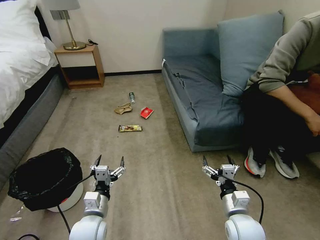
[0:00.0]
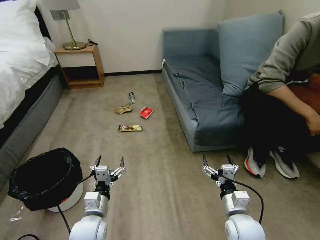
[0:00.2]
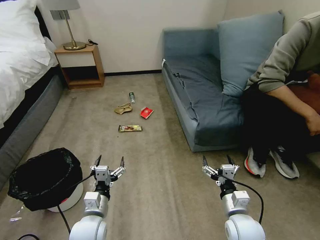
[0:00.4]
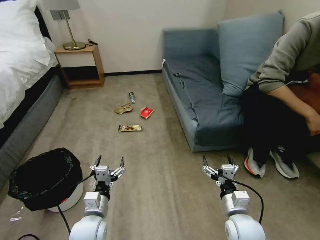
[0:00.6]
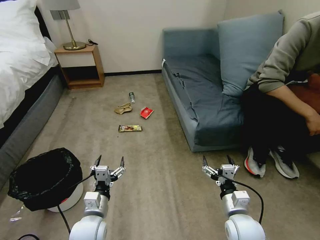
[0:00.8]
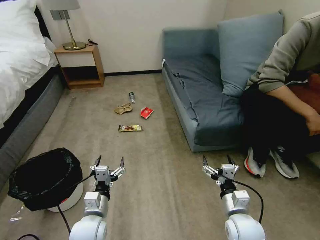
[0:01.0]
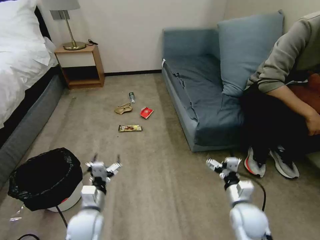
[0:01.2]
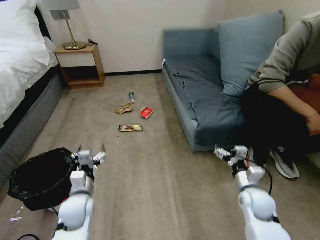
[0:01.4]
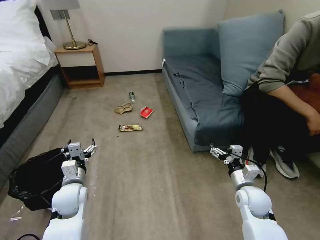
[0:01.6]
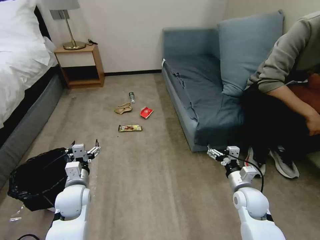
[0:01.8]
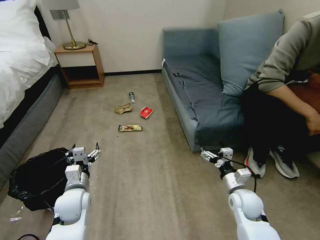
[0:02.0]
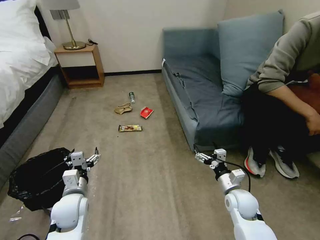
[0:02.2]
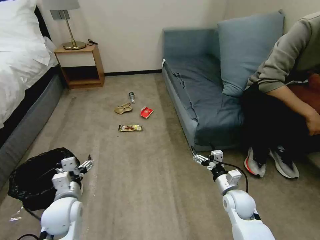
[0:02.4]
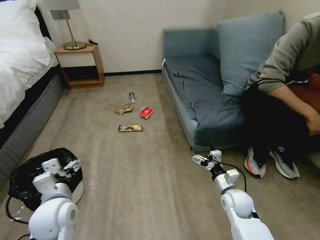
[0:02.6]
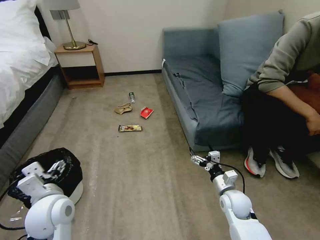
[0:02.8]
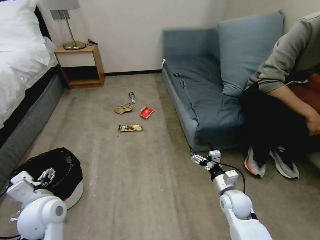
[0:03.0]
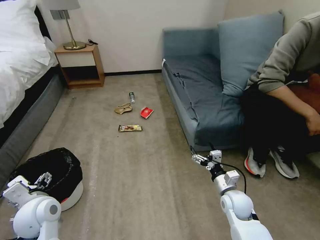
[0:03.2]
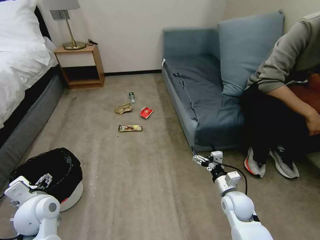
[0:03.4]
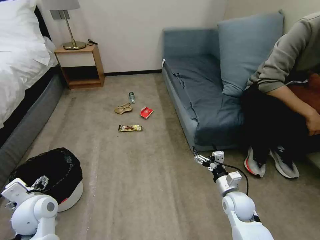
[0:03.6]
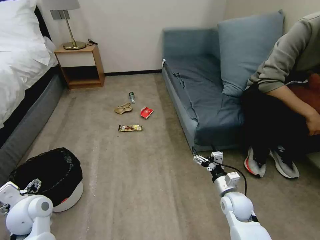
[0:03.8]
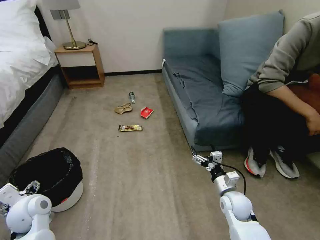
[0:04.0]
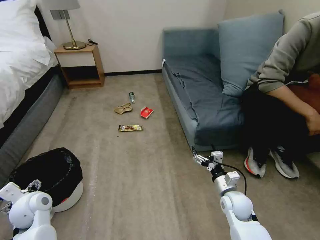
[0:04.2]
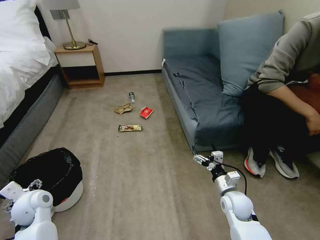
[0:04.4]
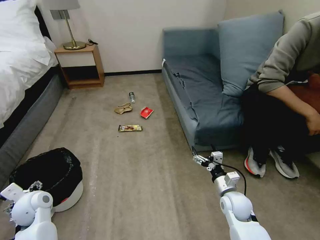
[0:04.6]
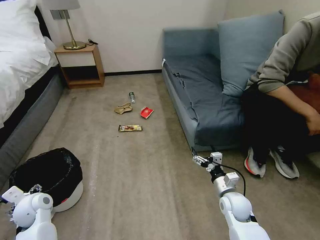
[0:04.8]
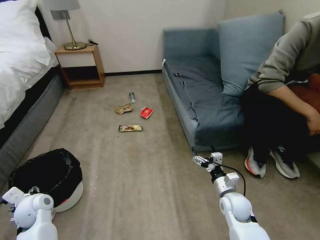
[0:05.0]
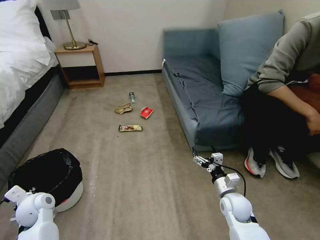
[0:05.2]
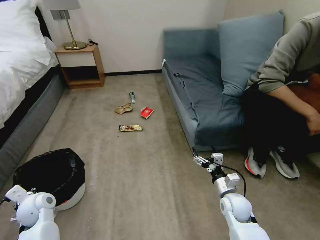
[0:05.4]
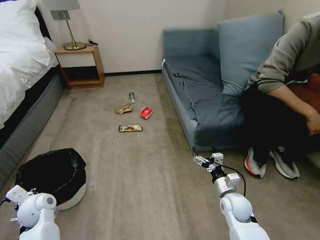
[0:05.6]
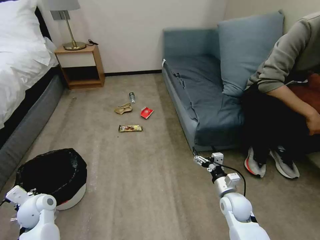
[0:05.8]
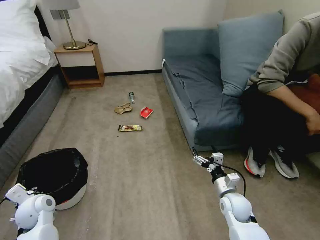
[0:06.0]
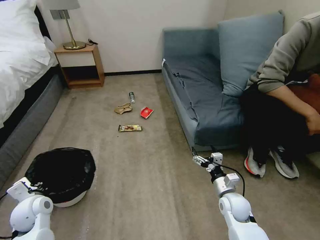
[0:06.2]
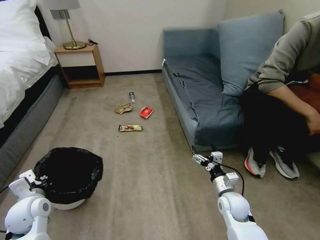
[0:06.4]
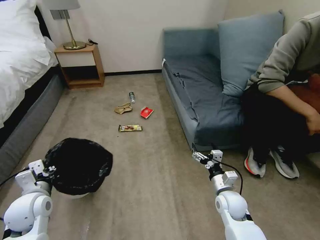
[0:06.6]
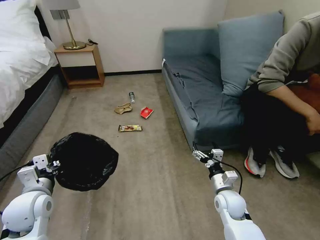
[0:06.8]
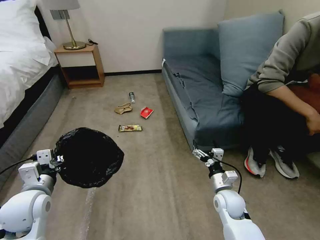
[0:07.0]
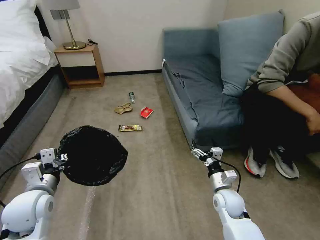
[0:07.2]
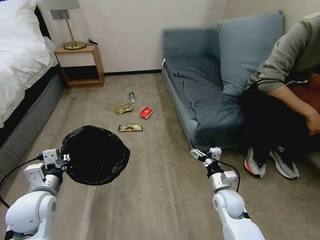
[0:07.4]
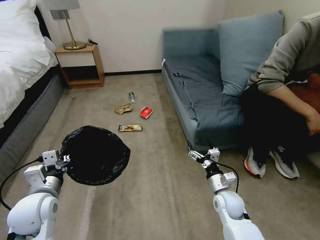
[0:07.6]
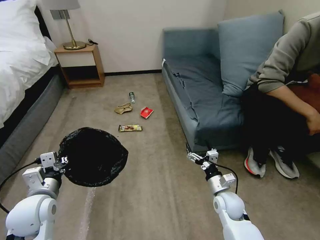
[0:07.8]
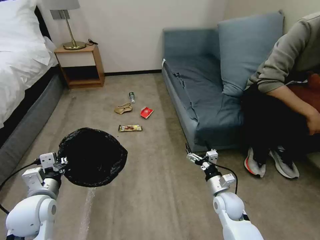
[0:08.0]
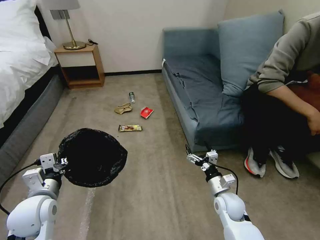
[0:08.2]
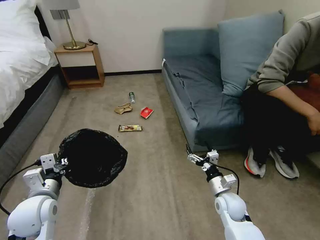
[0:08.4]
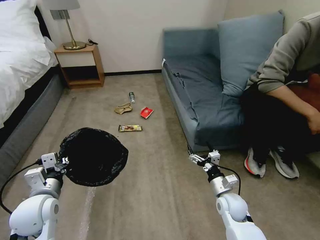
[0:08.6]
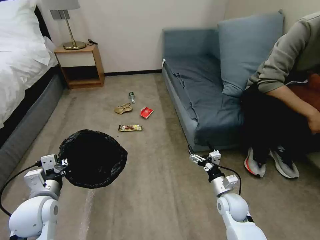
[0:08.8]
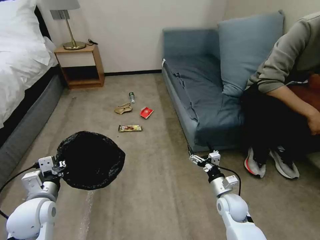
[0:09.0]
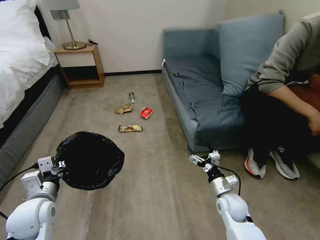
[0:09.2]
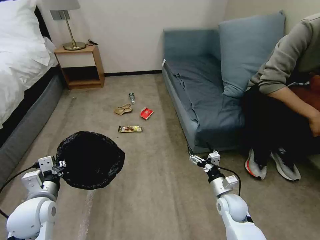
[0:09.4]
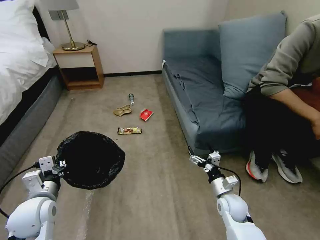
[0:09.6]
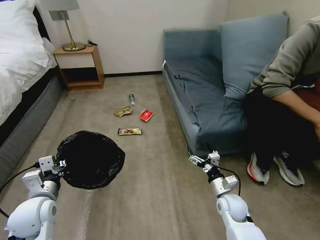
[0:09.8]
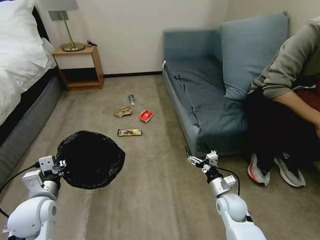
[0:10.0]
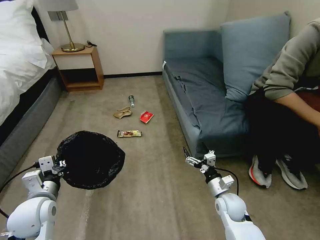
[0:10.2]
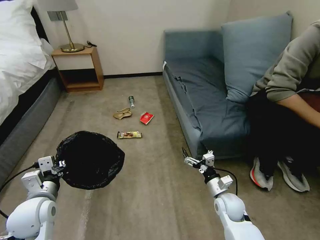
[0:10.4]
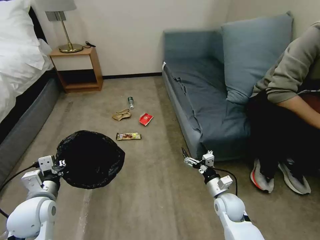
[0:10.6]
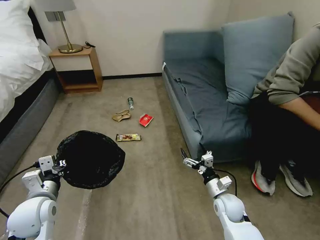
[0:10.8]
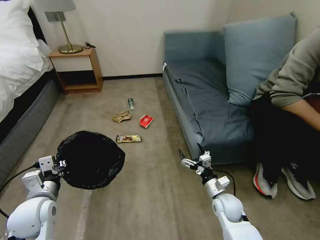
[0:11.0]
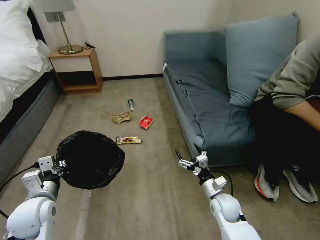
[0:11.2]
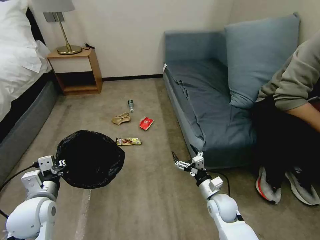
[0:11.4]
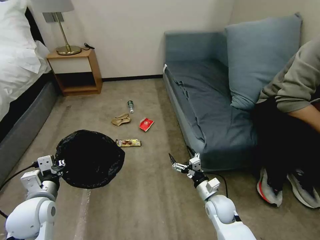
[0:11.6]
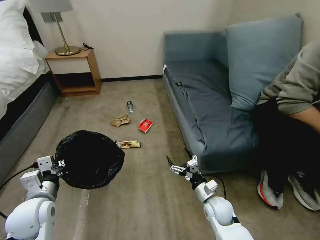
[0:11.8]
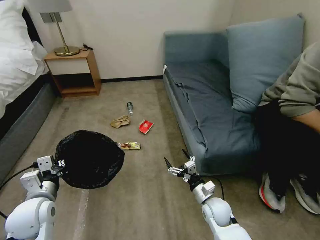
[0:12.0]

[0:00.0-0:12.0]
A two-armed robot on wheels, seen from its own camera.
Task of the whole recording: Pick up the trash bin, then pick up the garbage on the floor and place it into the trash bin.
0:01.6 to 0:03.0: The right gripper changes place by about 5 cm. Meanwhile the left gripper shifts approximately 10 cm backward and upward.
0:03.0 to 0:04.4: The left gripper moves to the left and downward, about 10 cm.
0:04.4 to 0:06.0: The left gripper closes.
0:06.0 to 0:07.6: The left gripper goes approximately 10 cm upward and to the right.
0:07.6 to 0:10.4: The grippers move only a little.
0:10.4 to 0:12.0: The right gripper shifts by approximately 5 cm.

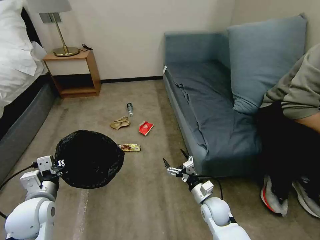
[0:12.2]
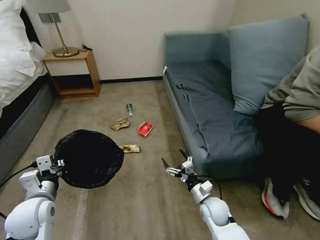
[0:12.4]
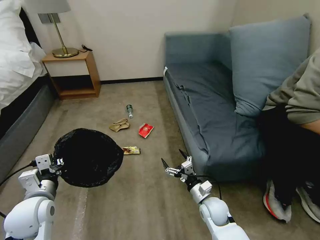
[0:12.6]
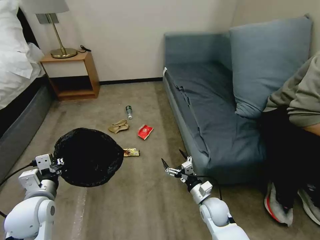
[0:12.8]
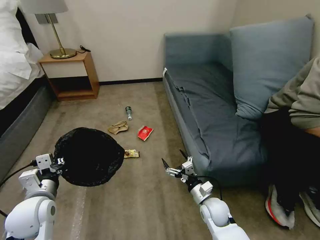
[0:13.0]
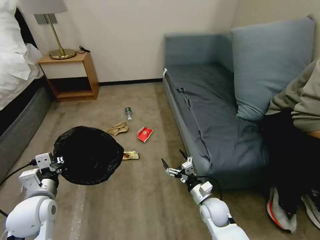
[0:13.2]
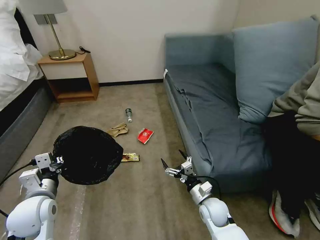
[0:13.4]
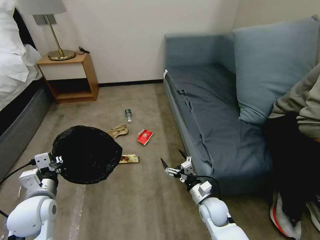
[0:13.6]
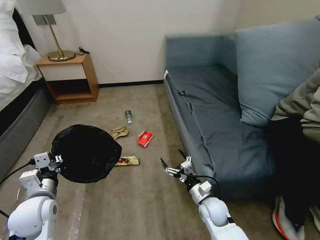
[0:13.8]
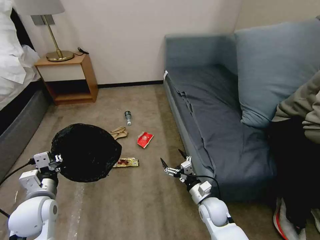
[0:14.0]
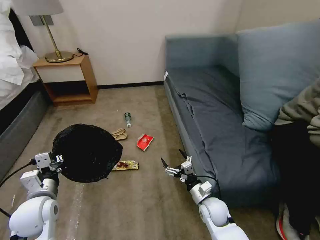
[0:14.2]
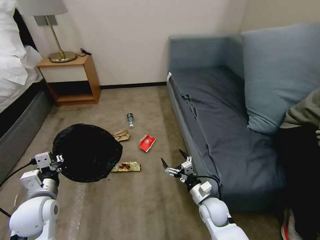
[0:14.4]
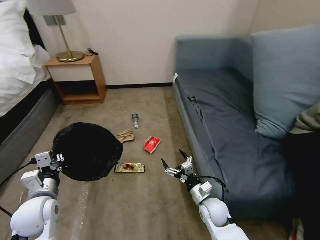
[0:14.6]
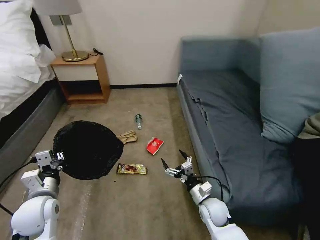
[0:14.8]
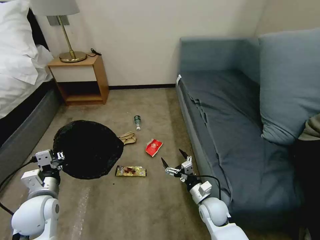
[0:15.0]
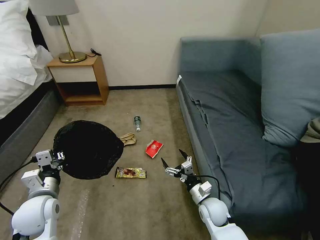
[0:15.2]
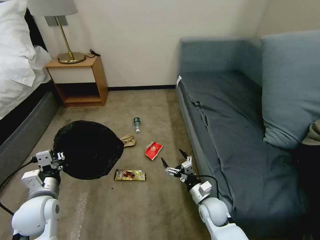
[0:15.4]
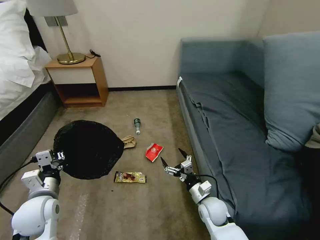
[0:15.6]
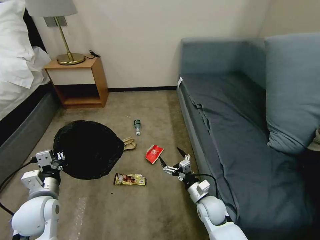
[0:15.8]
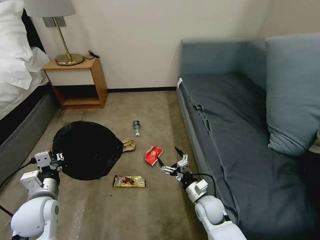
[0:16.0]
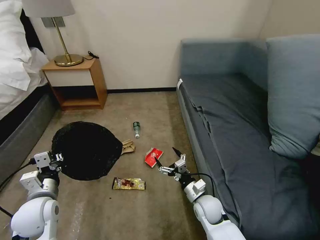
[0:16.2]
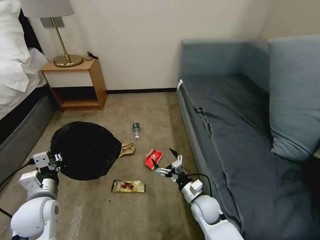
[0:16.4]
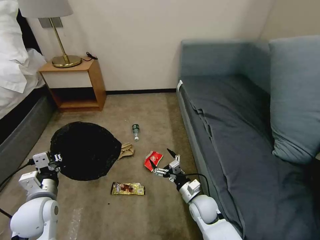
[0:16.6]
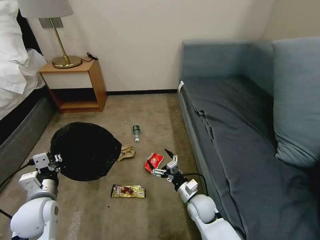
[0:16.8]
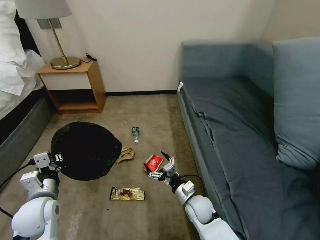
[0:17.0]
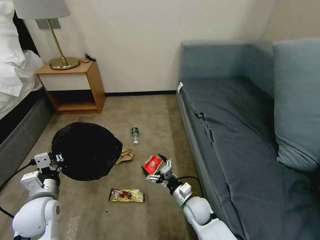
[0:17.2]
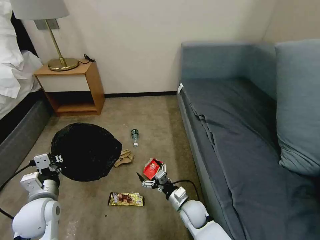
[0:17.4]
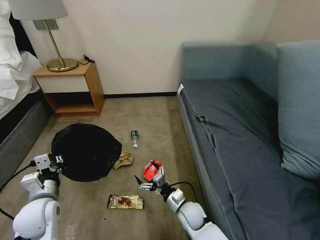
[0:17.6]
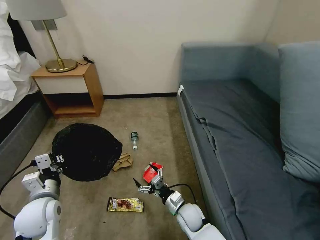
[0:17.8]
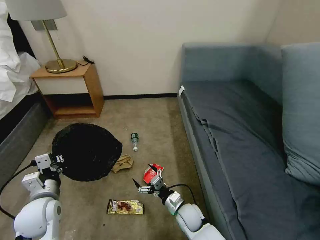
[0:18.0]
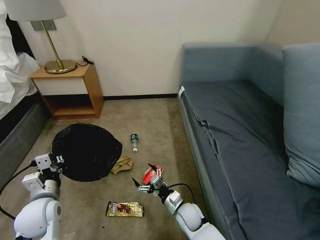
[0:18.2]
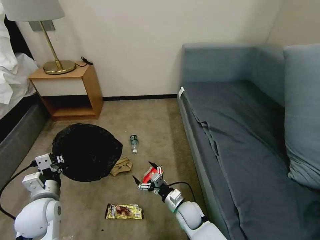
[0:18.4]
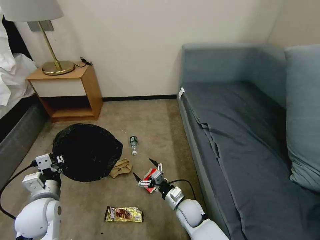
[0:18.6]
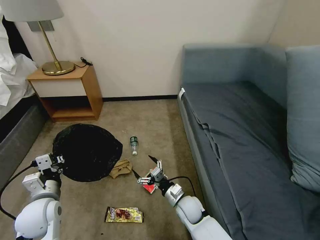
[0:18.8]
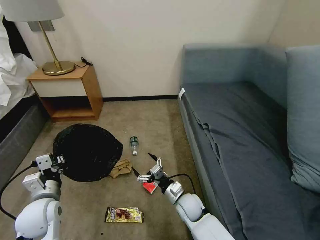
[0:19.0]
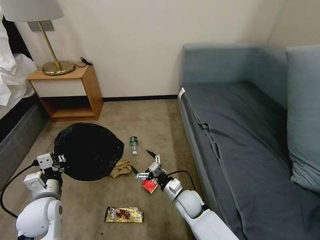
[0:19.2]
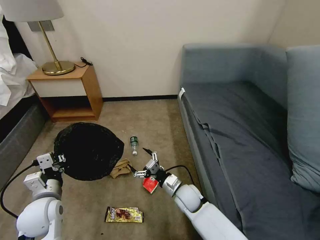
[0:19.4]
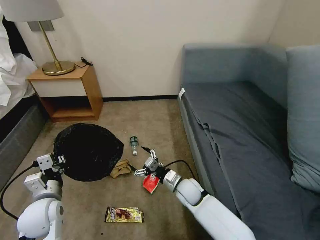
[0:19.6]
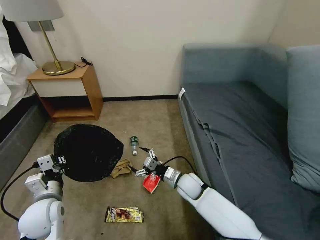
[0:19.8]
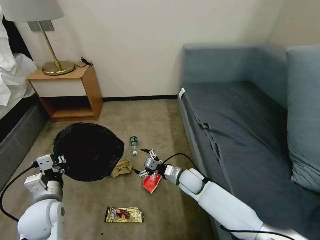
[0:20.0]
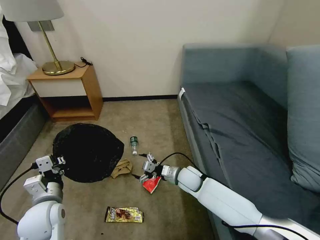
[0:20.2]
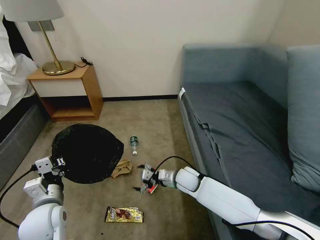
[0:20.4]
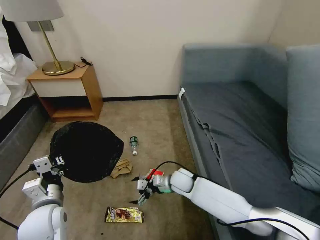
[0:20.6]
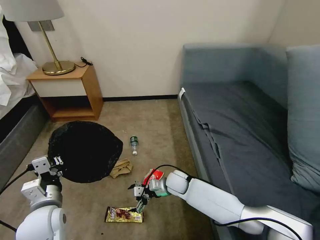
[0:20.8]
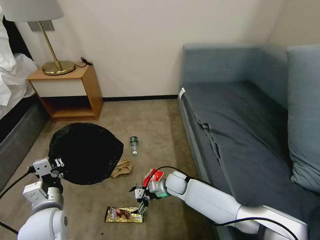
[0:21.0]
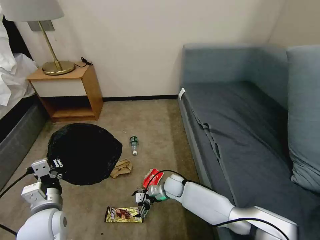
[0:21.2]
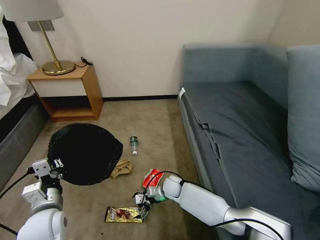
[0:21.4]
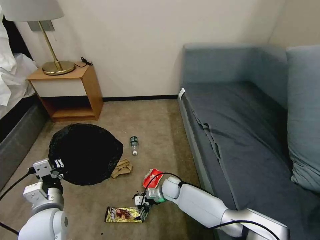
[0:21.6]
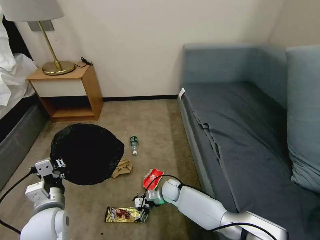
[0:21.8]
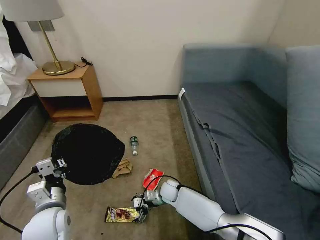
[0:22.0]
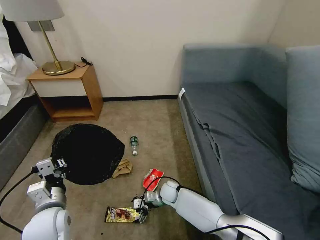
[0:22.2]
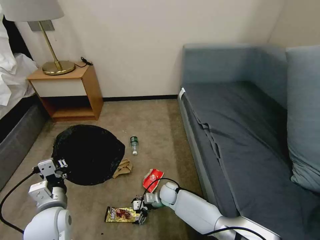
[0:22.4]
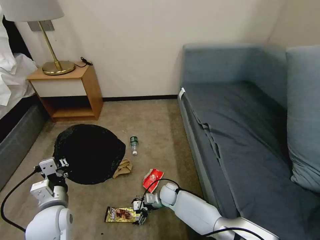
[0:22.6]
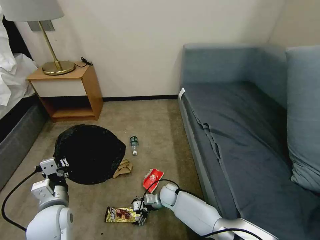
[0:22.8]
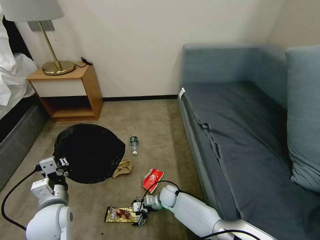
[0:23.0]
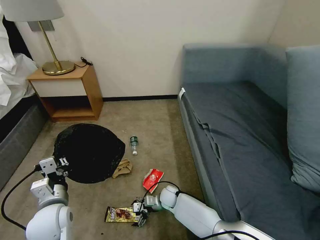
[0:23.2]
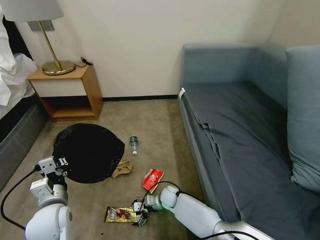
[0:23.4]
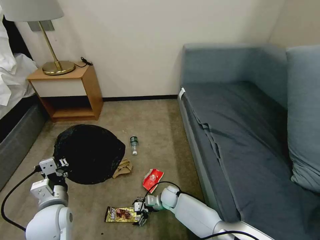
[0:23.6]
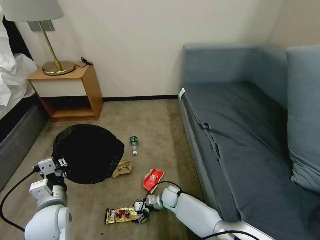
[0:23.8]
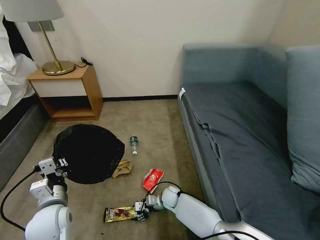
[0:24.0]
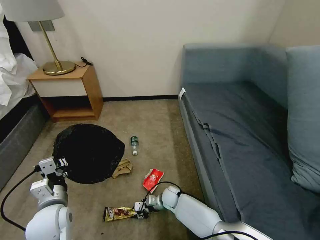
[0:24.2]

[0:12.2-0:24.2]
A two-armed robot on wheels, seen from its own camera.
Task of the whole recording: Pick up the trash bin, then pick up the garbage on the floor and place it into the trash bin.
0:16.6 to 0:18.2: The right gripper ends up some 5 cm from where it was.
0:18.2 to 0:19.8: The right gripper is displaced forward and upward by approximately 10 cm.
0:19.8 to 0:21.2: The right gripper moves downward, some 5 cm.
0:21.2 to 0:22.6: The right gripper moves downward, some 5 cm.
0:22.6 to 0:24.2: The right gripper closes up.
